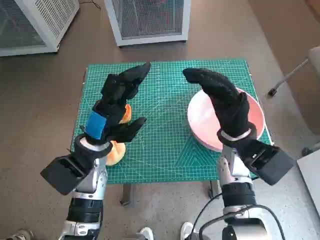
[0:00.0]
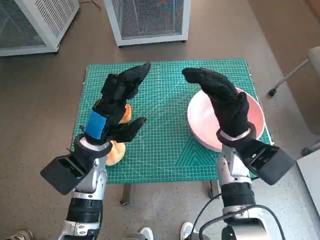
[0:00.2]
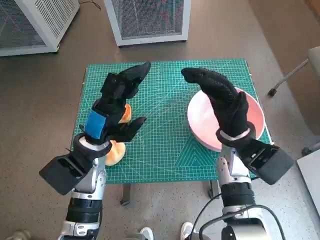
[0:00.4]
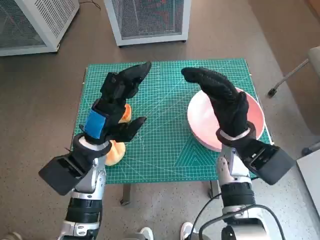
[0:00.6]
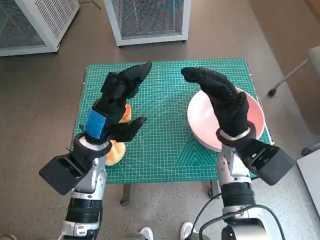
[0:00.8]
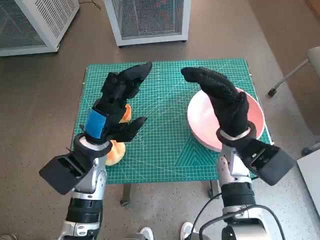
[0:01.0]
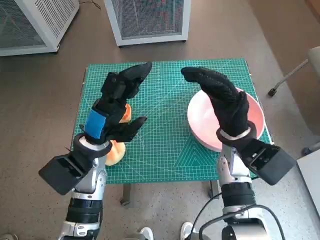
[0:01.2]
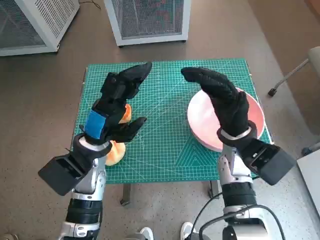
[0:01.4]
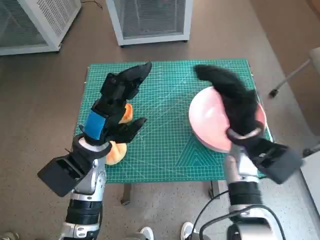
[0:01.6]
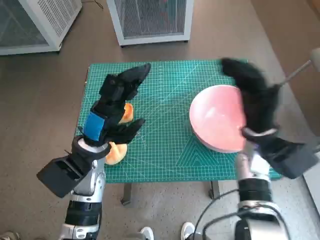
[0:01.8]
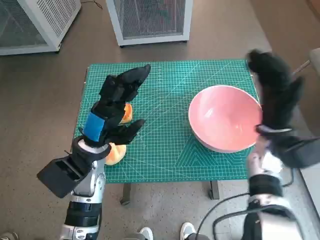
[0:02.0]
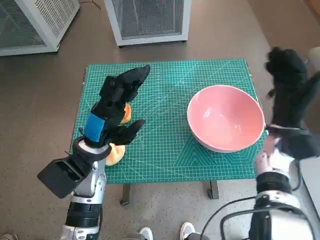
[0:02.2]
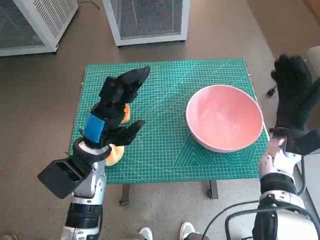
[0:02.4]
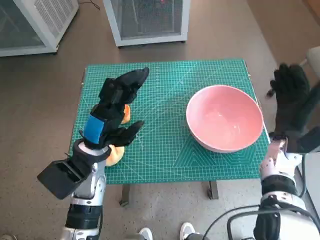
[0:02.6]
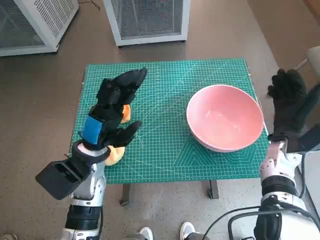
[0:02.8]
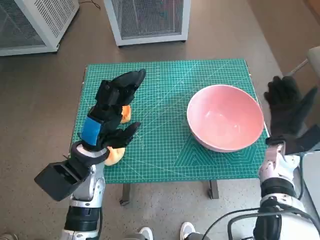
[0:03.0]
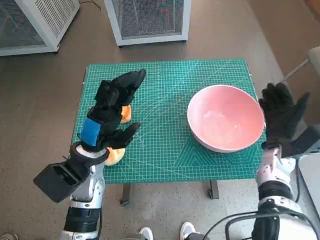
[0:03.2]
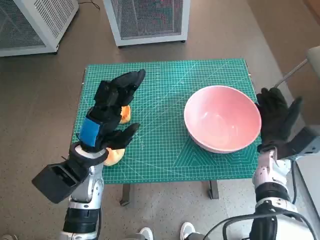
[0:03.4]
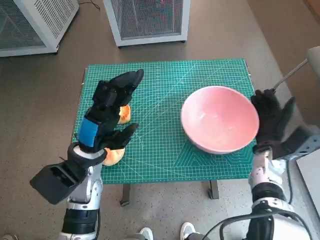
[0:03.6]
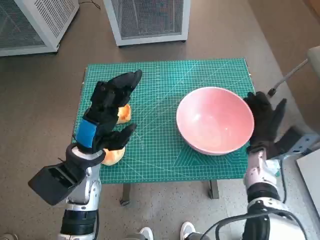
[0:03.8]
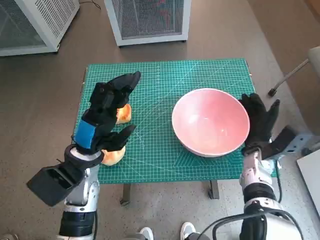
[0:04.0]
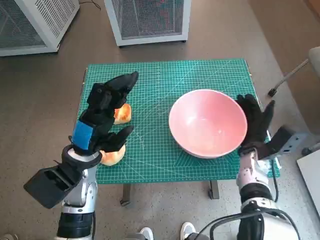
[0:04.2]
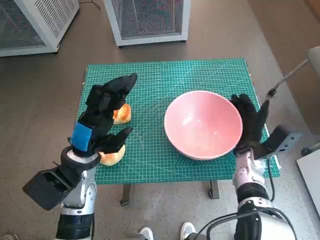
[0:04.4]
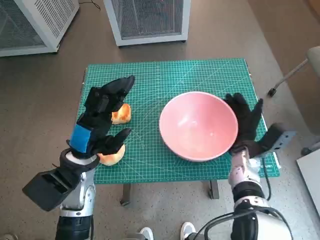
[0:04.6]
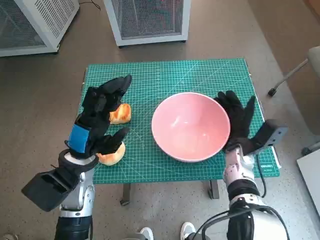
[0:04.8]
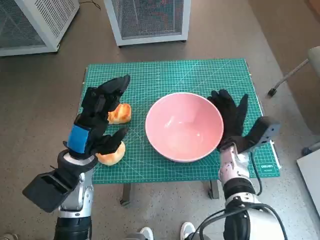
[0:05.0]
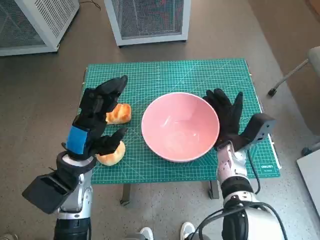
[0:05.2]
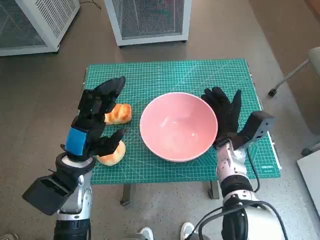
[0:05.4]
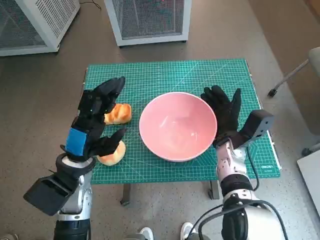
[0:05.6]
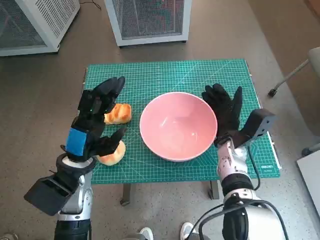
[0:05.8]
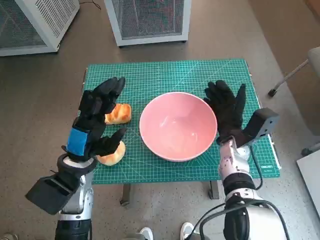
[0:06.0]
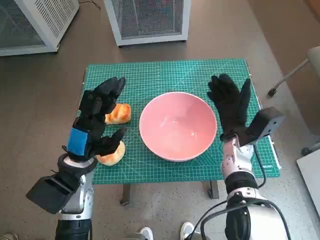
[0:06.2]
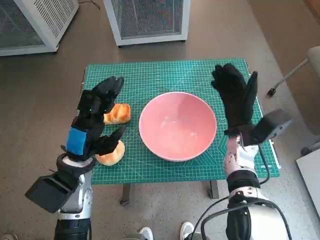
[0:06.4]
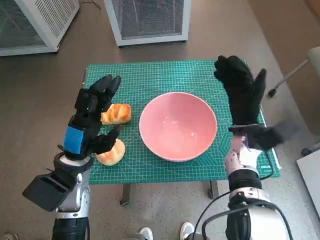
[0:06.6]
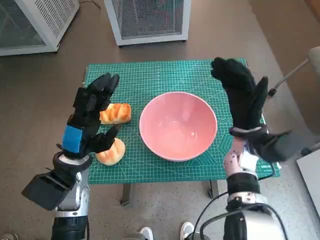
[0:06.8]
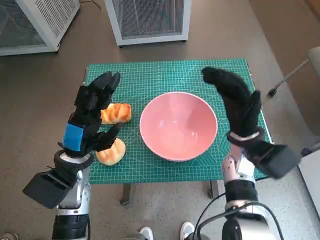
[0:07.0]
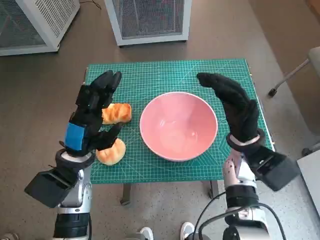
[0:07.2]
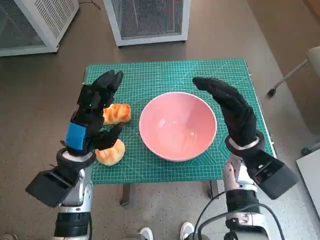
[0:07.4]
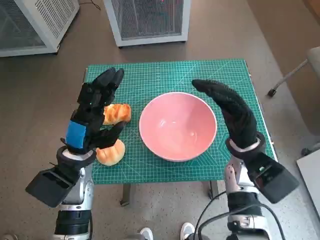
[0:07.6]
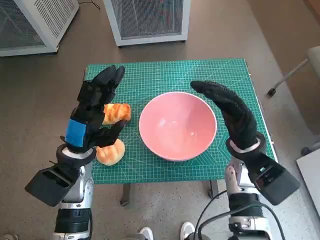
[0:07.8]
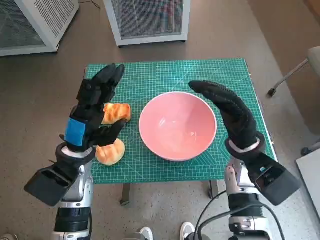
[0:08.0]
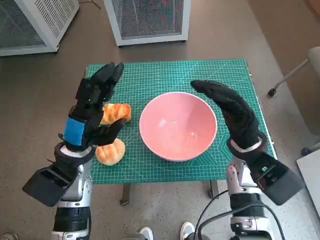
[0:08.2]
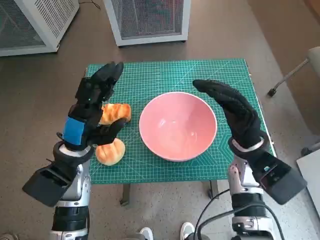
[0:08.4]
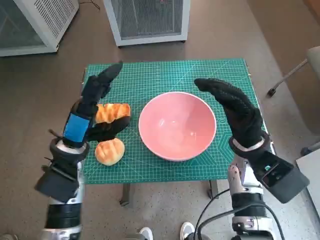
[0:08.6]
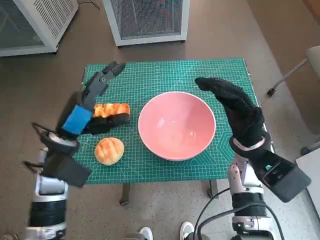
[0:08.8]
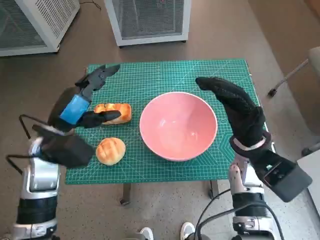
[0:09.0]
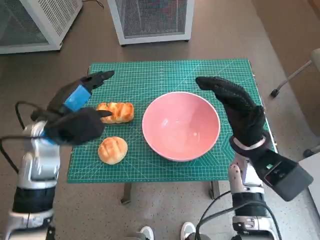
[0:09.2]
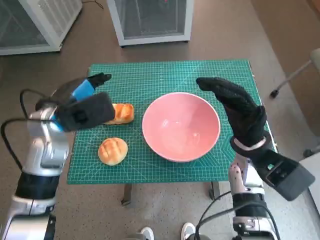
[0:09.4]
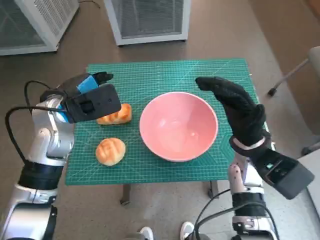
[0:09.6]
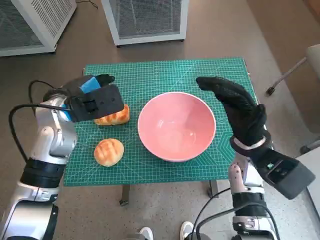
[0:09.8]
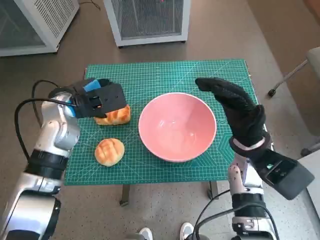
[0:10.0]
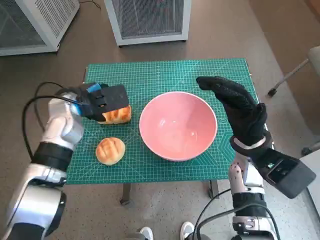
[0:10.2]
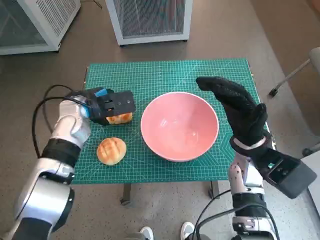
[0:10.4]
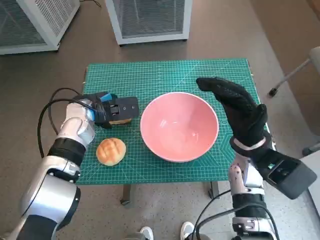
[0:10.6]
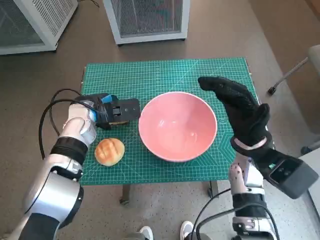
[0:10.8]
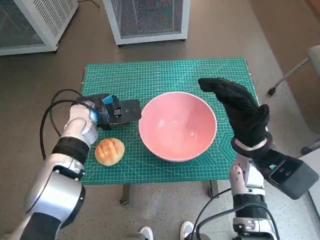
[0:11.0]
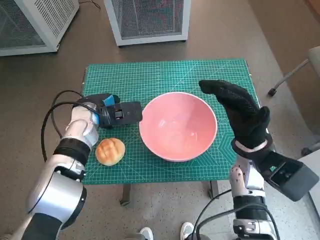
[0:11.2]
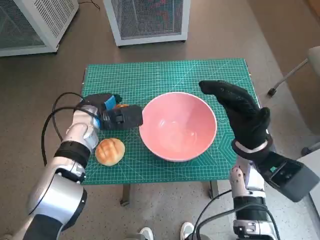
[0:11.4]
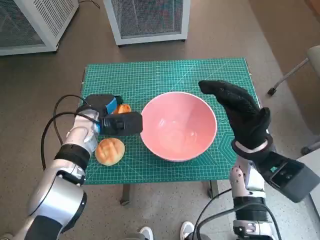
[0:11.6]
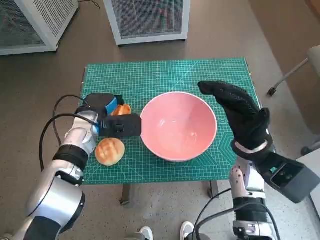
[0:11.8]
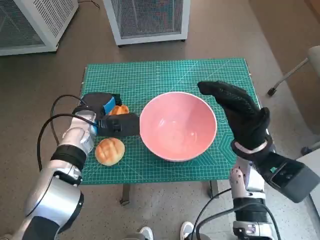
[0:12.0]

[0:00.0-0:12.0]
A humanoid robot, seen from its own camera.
Task of the whole recording: Push the bowl into the center of the table and put the bread into the bowl.
Step, 0:00.0 to 0:06.2: Move the pink bowl to the center of table with right hand.
Step, 0:06.4 to 0:11.6: Grasp the long bread with left hand.
0:01.6 to 0:03.0: The right hand goes some 10 cm to the right and downward.
0:03.0 to 0:04.4: The right hand is displaced to the left by approximately 5 cm.
0:04.4 to 0:06.0: The right hand changes place by roughly 5 cm.
0:06.0 to 0:07.6: The right hand goes roughly 5 cm upward.
0:07.6 to 0:09.0: The left hand ends up approximately 5 cm from where it was.
0:09.0 to 0:10.4: The left hand moves forward, roughly 10 cm.
0:10.4 to 0:12.0: The left hand shifts approximately 5 cm downward.

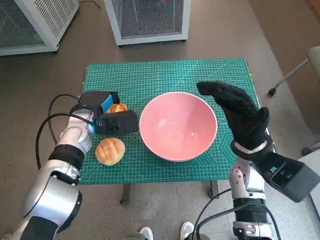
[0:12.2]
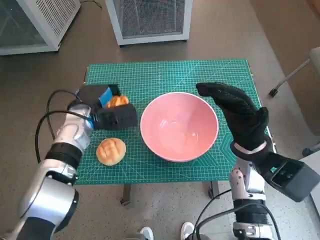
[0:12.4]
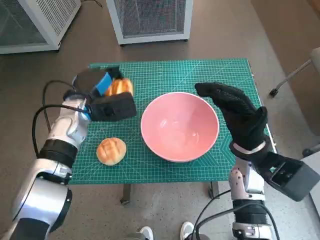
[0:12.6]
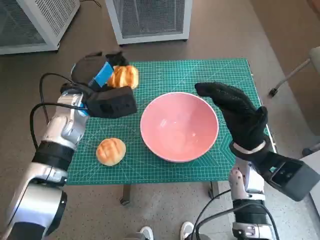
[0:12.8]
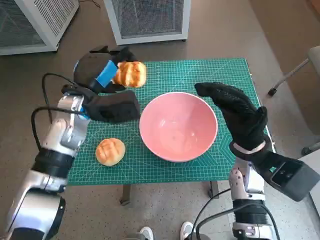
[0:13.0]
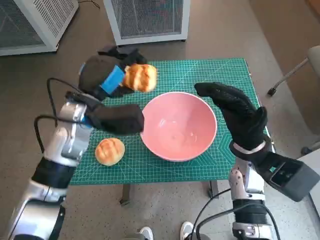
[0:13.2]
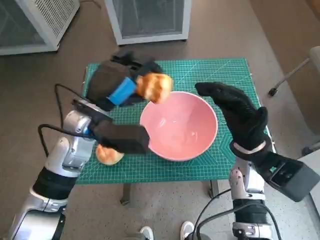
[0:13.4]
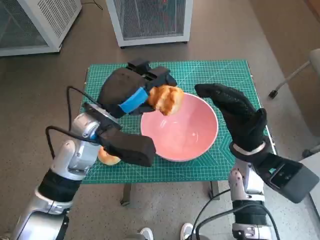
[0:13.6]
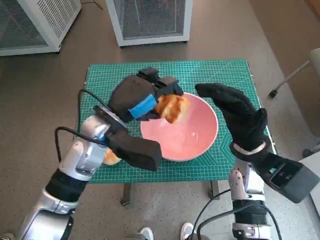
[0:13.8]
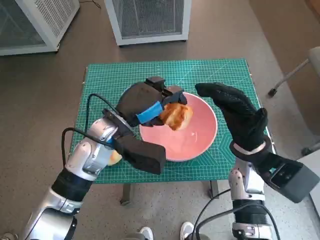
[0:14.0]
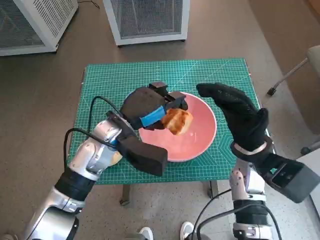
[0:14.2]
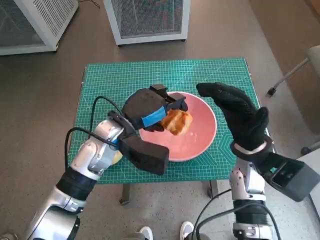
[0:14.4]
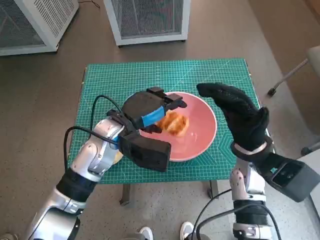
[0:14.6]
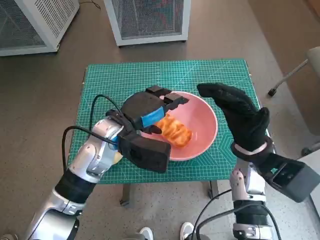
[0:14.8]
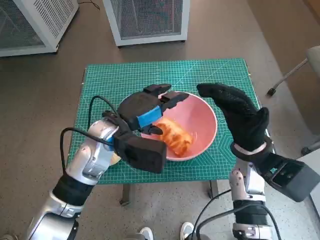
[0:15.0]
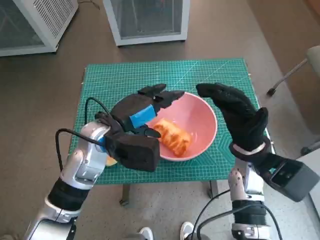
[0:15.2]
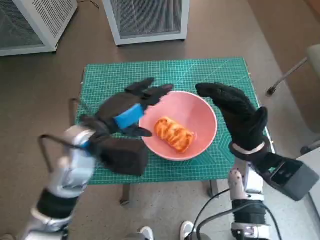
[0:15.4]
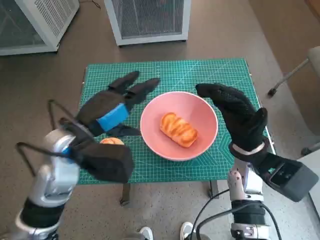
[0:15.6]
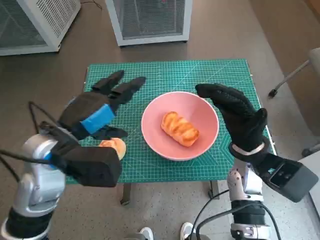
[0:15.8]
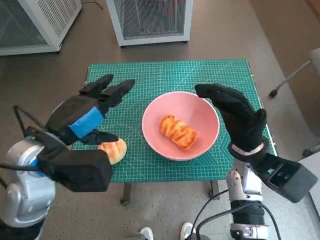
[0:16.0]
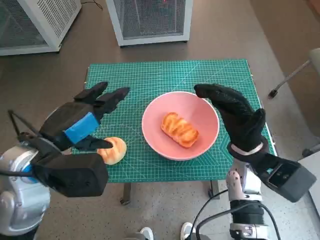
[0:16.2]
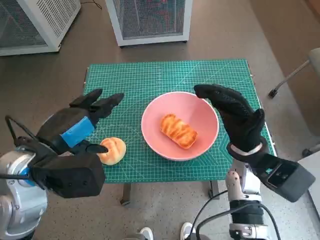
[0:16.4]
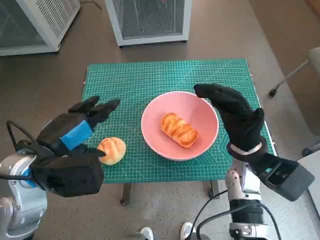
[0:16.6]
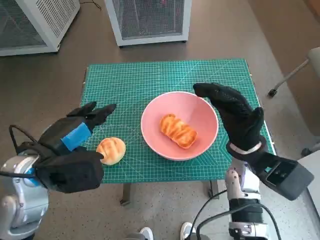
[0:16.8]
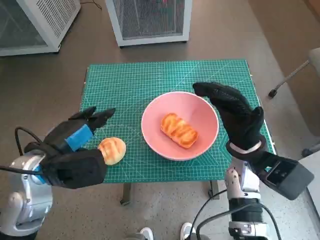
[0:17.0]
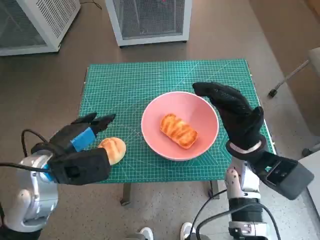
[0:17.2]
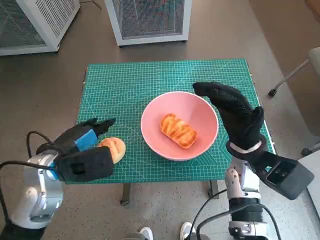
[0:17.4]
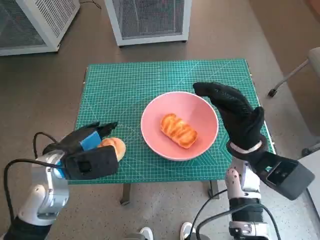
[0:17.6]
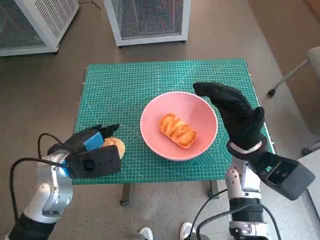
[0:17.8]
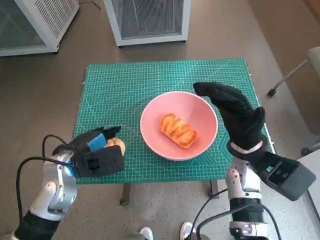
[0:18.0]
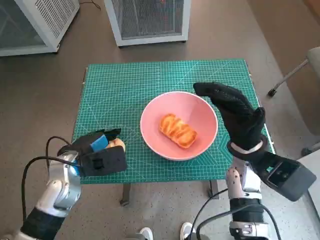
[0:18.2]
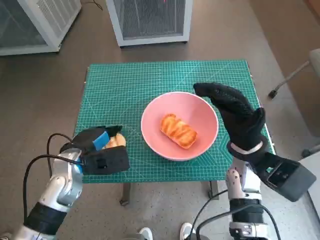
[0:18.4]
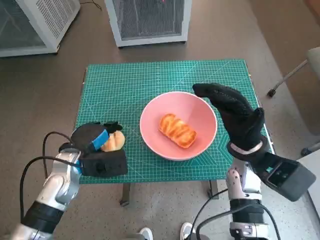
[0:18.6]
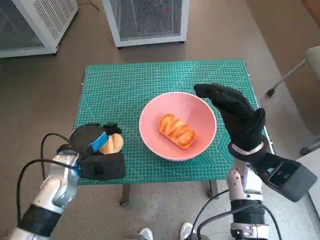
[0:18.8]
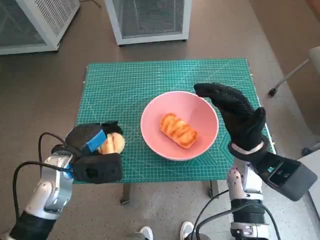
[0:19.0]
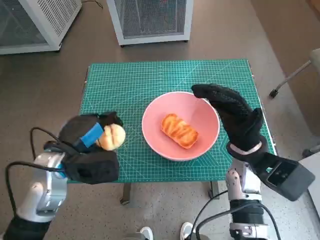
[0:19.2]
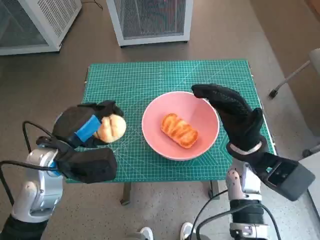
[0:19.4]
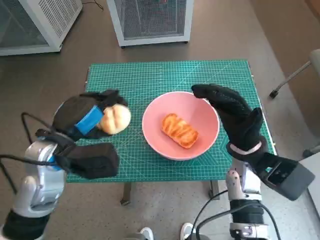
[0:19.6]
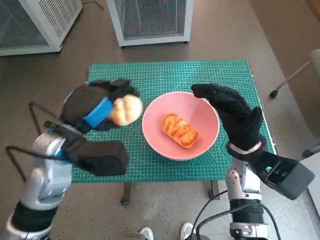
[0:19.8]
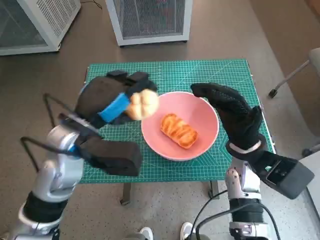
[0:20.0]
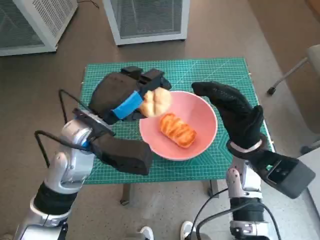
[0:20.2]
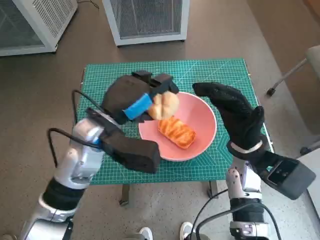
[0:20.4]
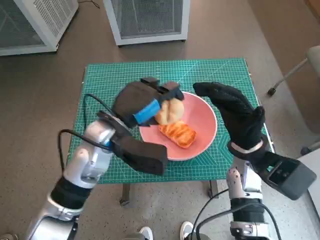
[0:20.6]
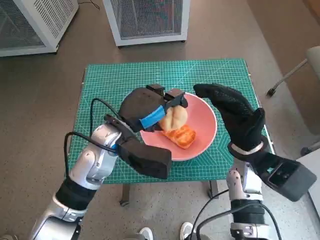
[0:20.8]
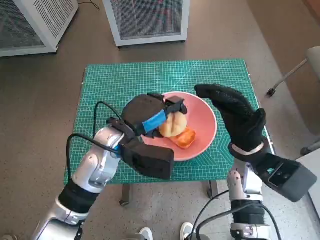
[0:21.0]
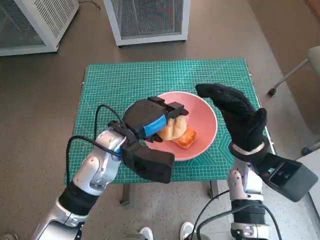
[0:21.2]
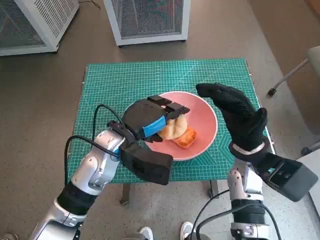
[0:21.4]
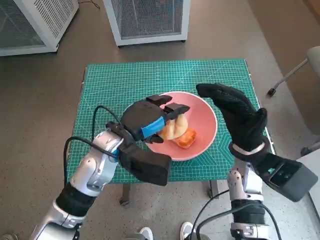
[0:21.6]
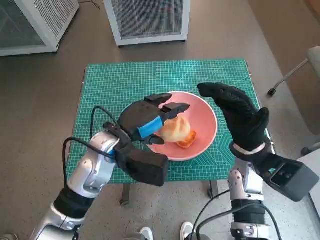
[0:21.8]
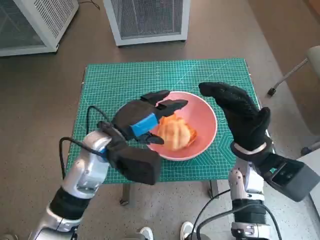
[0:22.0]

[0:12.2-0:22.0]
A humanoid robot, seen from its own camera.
Task of the whole recording: Push the bowl into the center of the table and put the bread into the bowl.
Step, 0:12.2 to 0:14.6: Place the long bread in pink bowl with left hand.
Step, 0:14.8 to 0:18.2: Grasp the round bread with left hand.
Step, 0:18.4 to 0:21.8: Place the round bread in pink bowl with left hand.
0:12.2 to 0:13.6: The left hand shifts some 10 cm upward, to the right and backward.
0:15.0 to 0:16.4: The left hand moves backward, to the left and upward, approximately 15 cm.
0:16.4 to 0:17.8: The left hand heads downward, covering approximately 10 cm.
0:17.8 to 0:19.2: The hands move only a little.
0:19.2 to 0:20.6: The left hand is displaced to the right by roughly 10 cm.
0:20.6 to 0:22.0: The hands move only a little.
